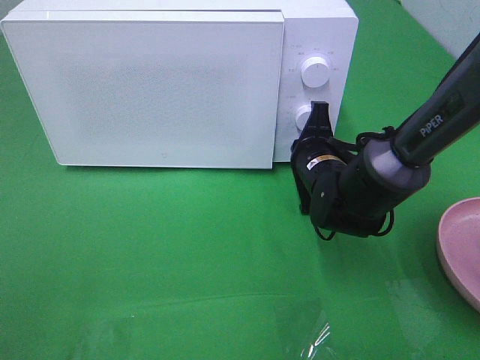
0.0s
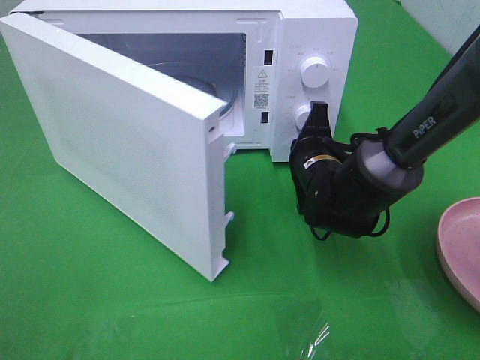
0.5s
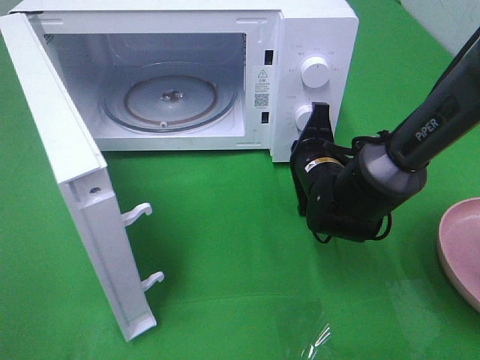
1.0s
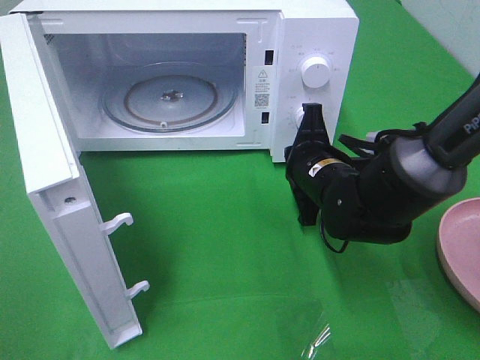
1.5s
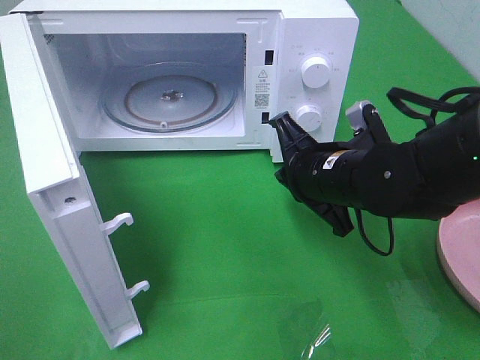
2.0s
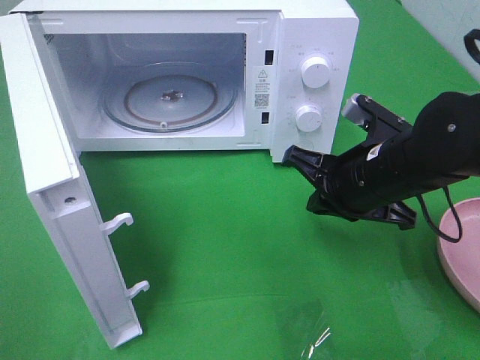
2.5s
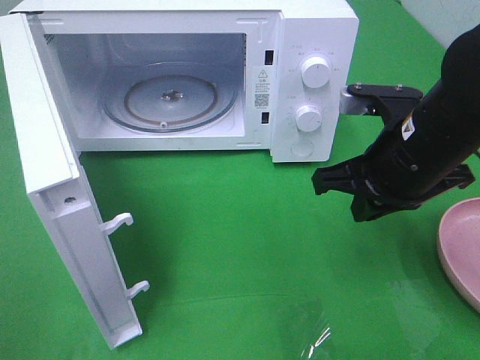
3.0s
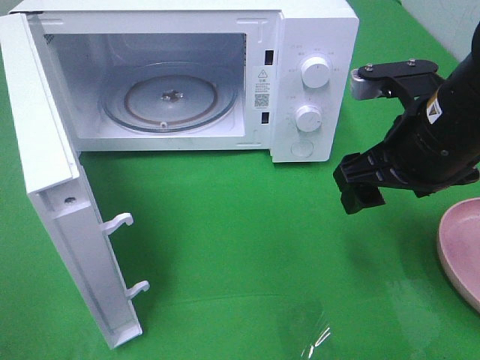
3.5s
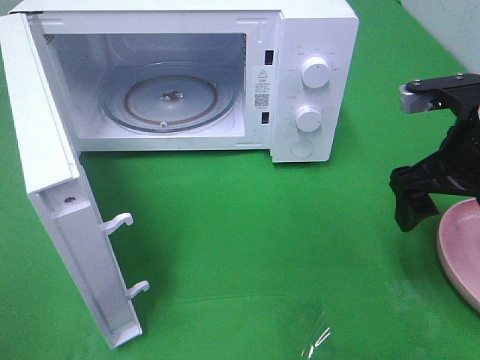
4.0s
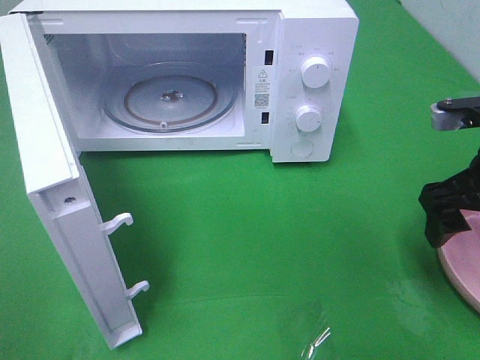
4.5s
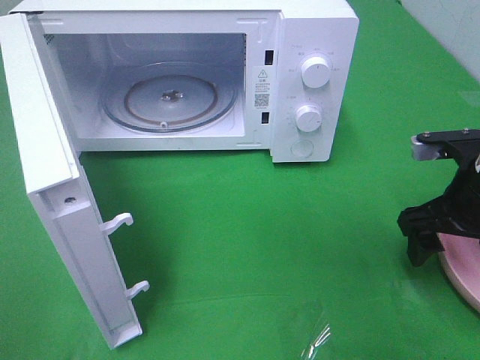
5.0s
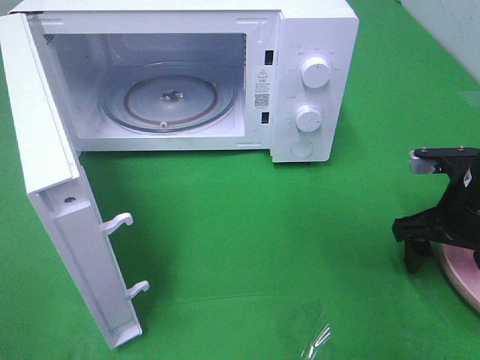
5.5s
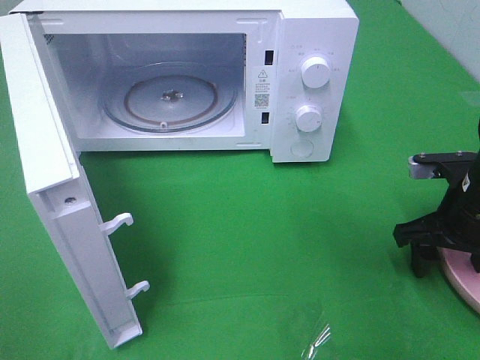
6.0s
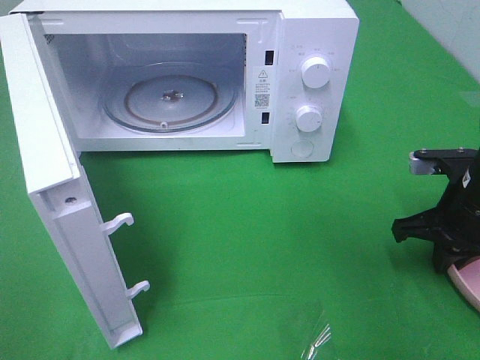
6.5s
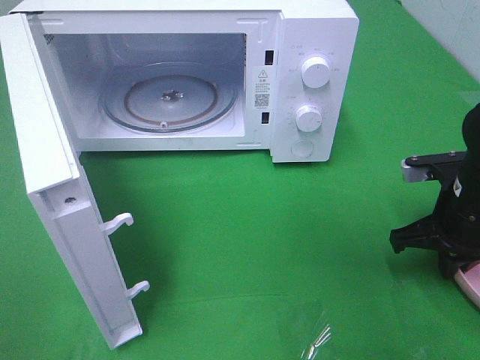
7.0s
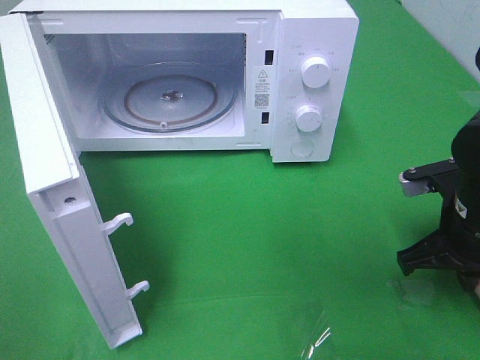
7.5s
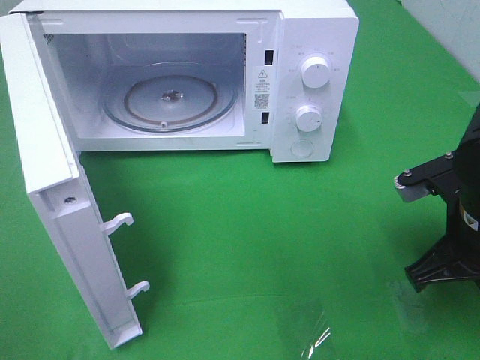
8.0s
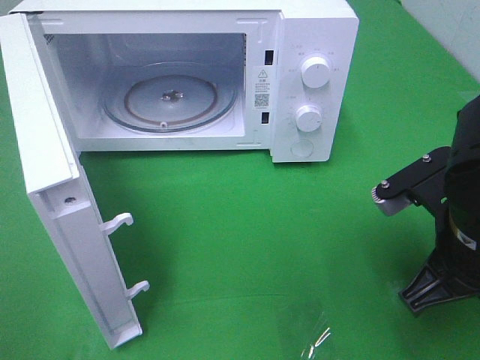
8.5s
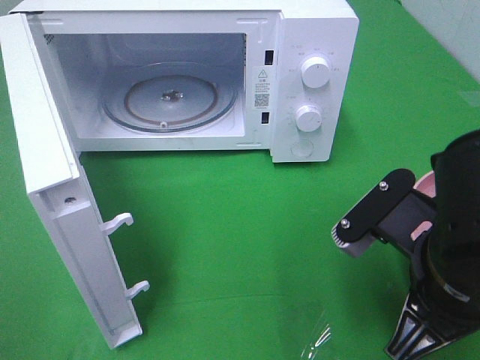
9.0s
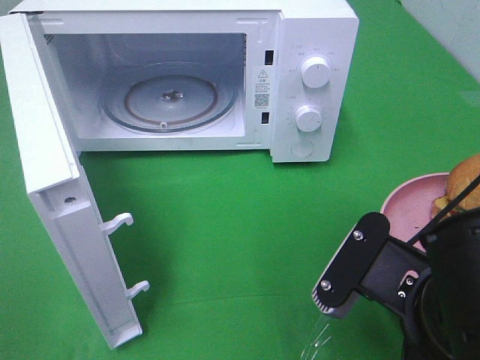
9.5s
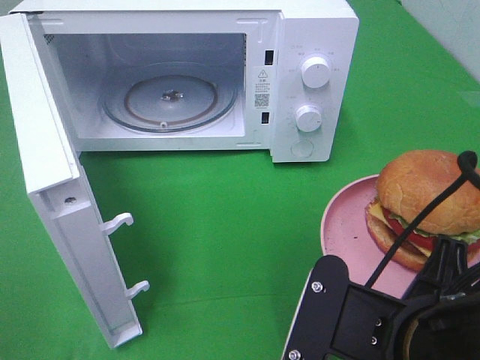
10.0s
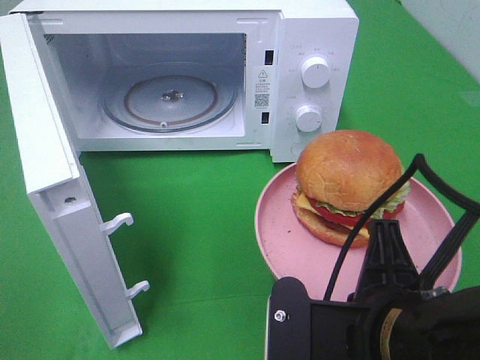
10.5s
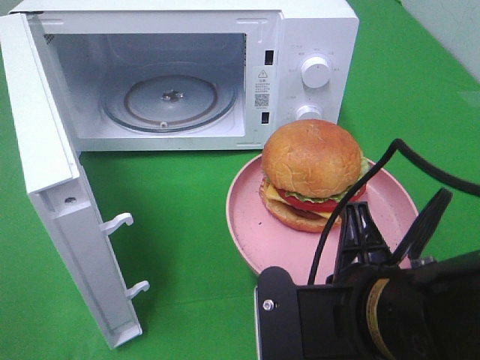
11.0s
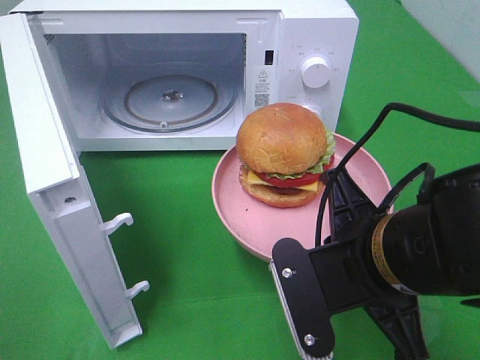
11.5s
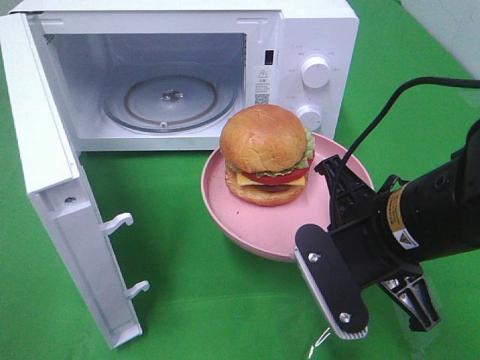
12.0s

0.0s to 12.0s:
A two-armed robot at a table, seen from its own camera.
Task of the whole recording: Heat the burger.
Step, 1.5s to 7.0s: Right hand: grab the plate with the hamburger.
0.0s to 2.0s: The right gripper travels backward and upward by approximately 10 cm.
2.0s to 4.0s: The right gripper moves to the right and upward, roughly 15 cm, and opens its fingers.
4.0s to 6.0s: The right gripper is displaced downward by about 10 cm.
6.0s to 8.0s: The right gripper is displaced backward by about 5 cm, and closes its fingers.
8.0s to 10.0s: The right gripper is displaced backward and to the left by roughly 15 cm.
10.0s to 12.0s: The right gripper heads forward, covering approximately 10 cm.

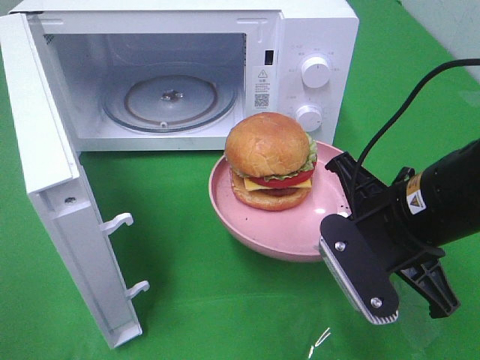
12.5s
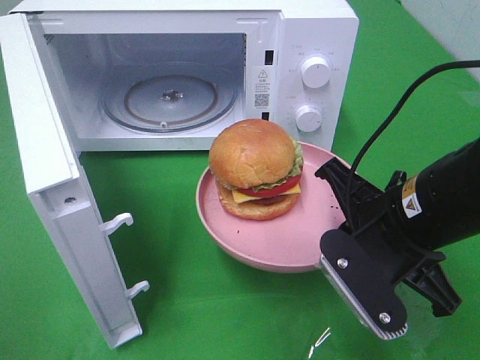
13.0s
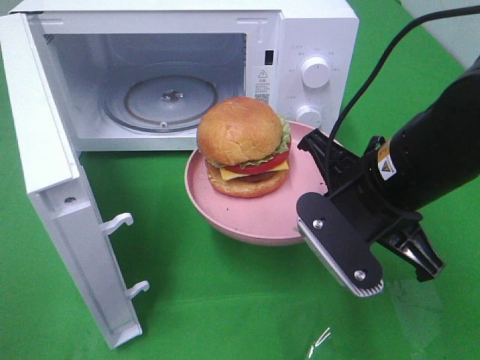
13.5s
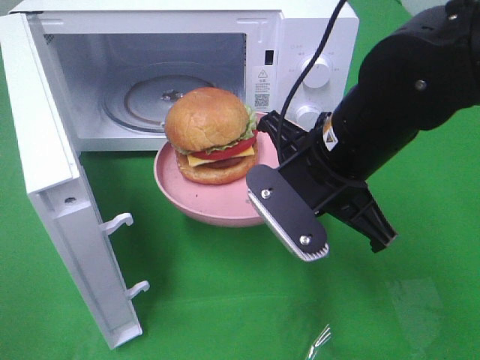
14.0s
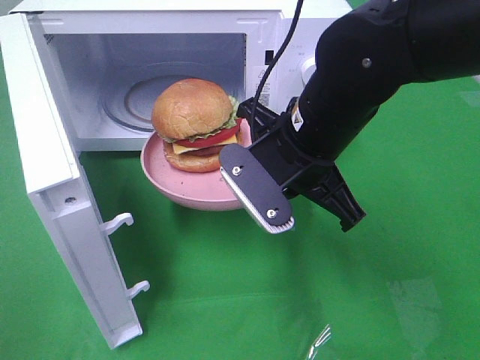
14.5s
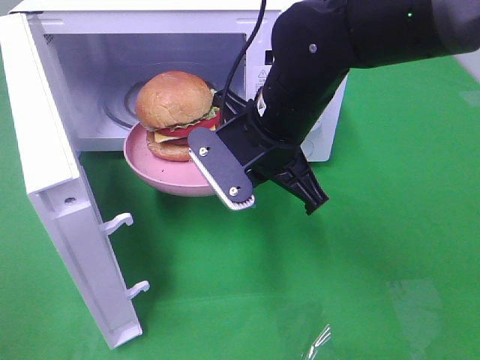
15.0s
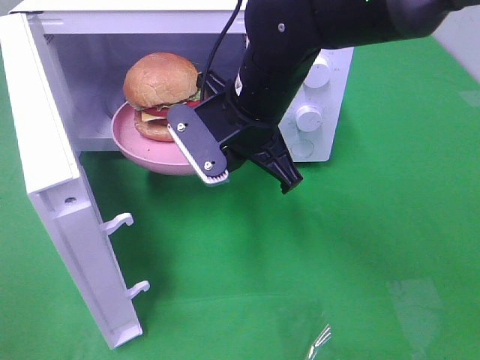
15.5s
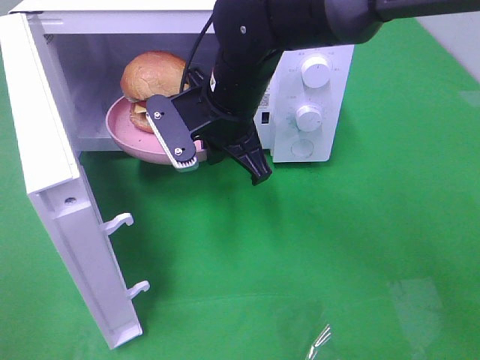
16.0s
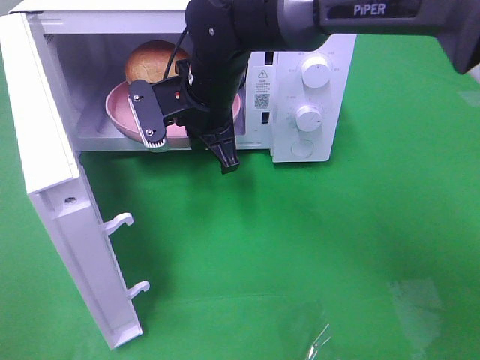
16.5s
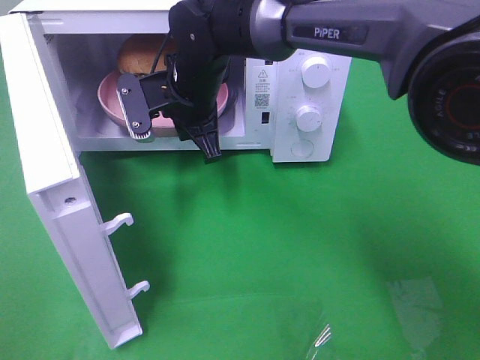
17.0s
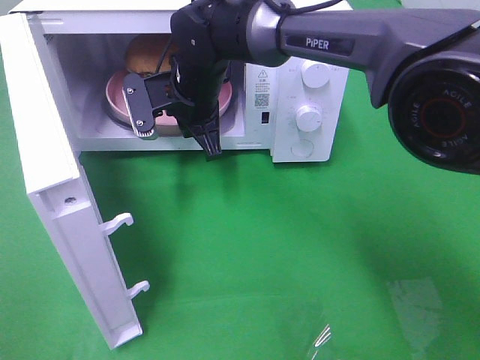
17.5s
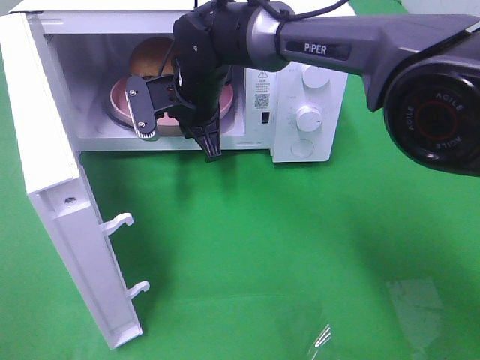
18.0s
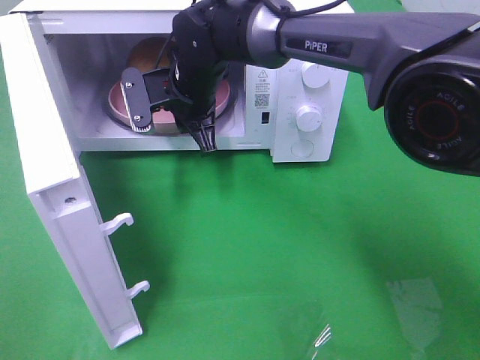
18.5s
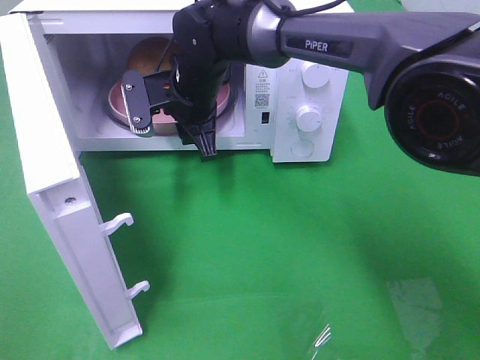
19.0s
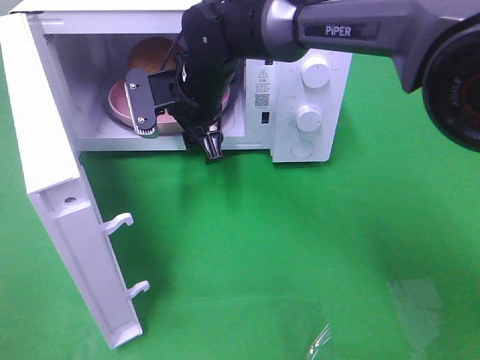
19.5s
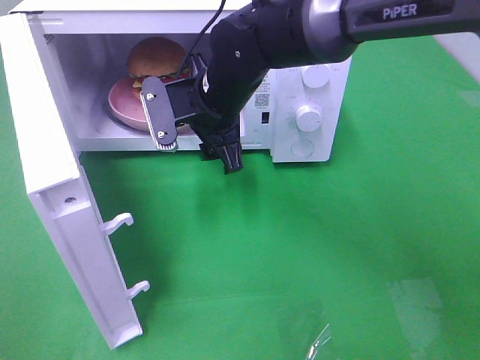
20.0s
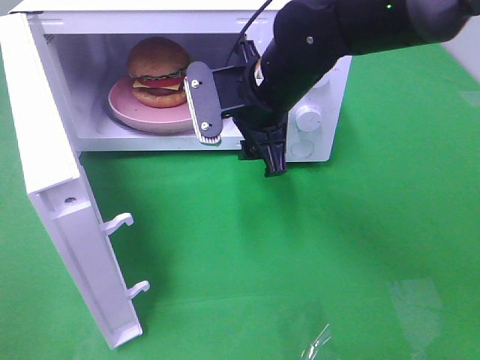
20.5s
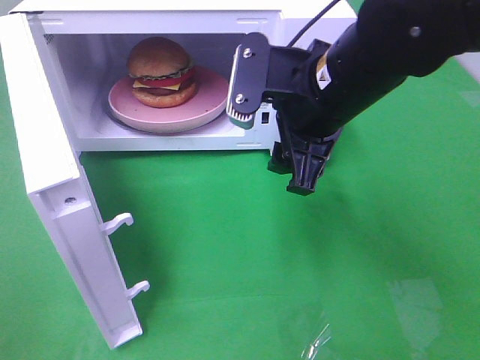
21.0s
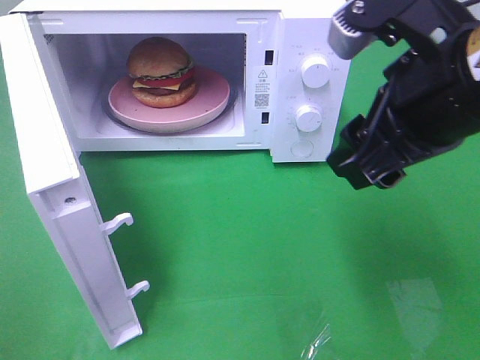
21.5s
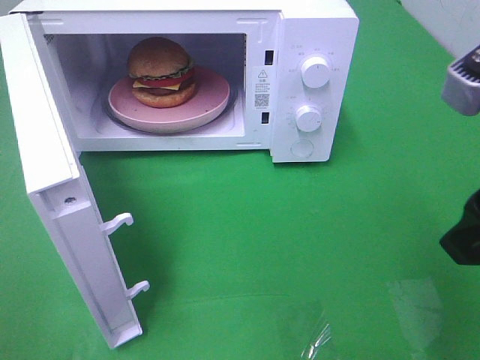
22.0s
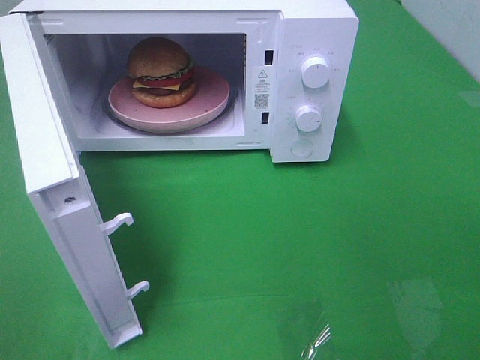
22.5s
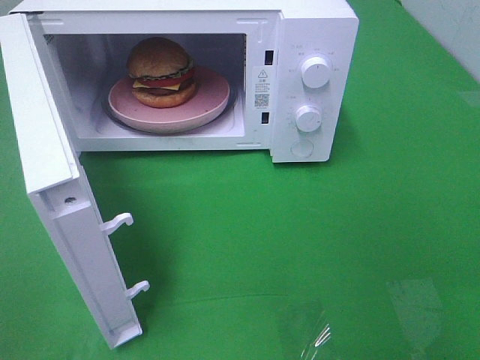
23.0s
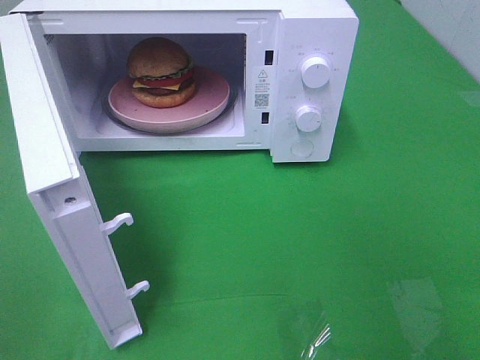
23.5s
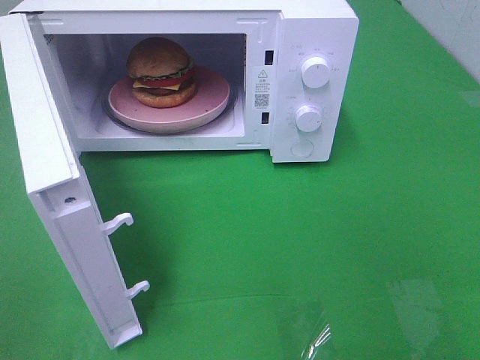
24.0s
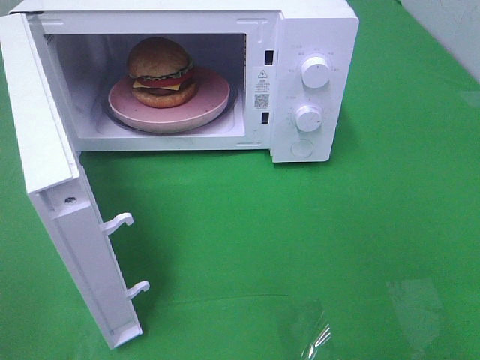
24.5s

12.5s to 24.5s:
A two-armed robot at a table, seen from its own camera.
Task of the whole recording: Heat the burger.
Step, 12.5s to 19.5s: Right hand: place the plate in the microwave.
12.5s to 14.5s: The right gripper moves to the left and forward, roughly 10 cm.
14.5s to 16.5s: The right gripper shifts roughly 15 cm forward and to the left.
16.5s to 18.5s: The right gripper changes place by about 5 cm.
18.5s to 20.5s: The right gripper heads to the right and backward, covering about 15 cm, and opens.
20.5s to 22.5s: The right gripper goes roughly 35 cm backward and to the right.

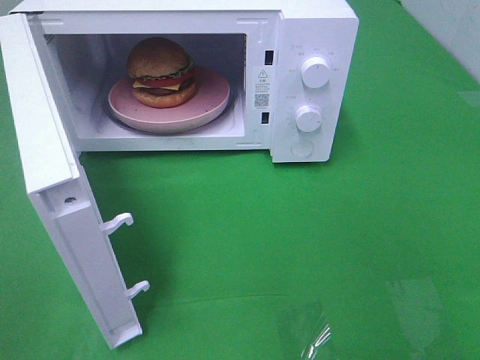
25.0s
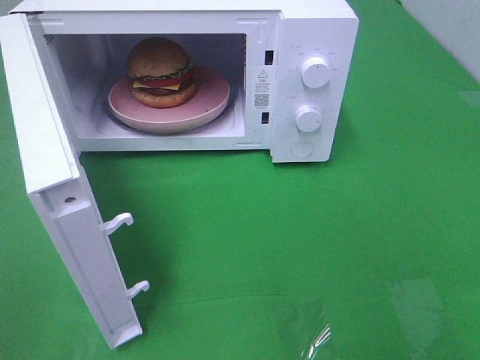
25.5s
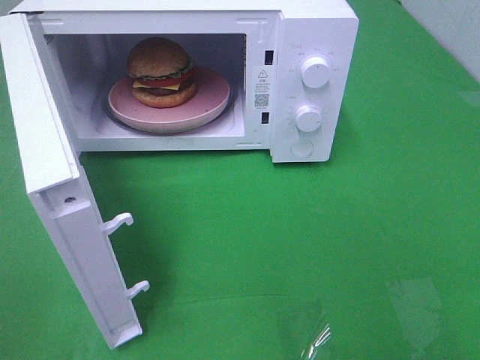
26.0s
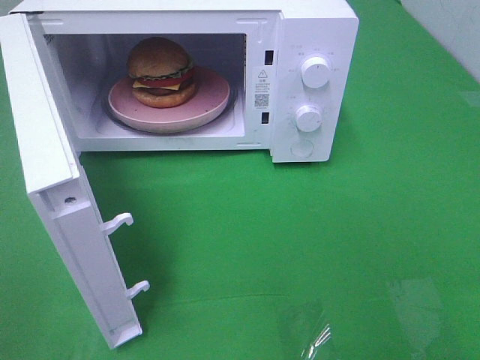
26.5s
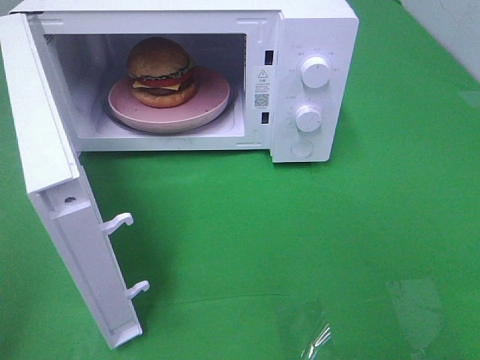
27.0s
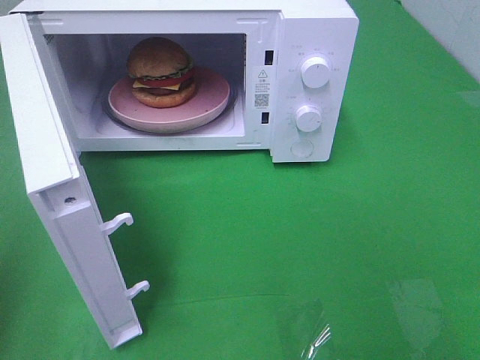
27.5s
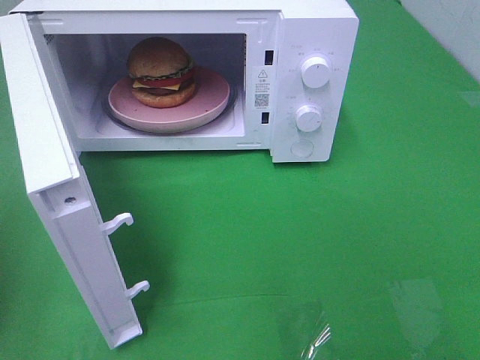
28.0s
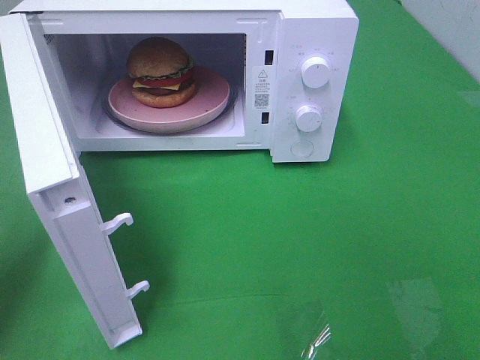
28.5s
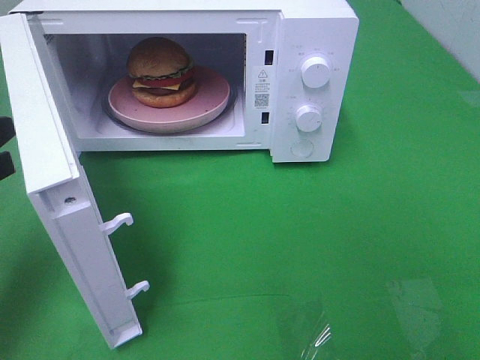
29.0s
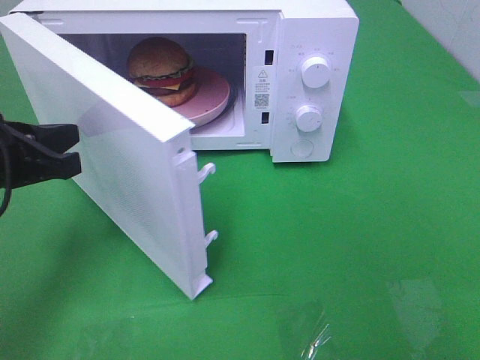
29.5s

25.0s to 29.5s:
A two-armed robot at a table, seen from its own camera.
Task of the whole recording: Heat the burger.
27.0s to 29.5s: The left gripper heads forward, downward and to the right, covering some 25 cm.
